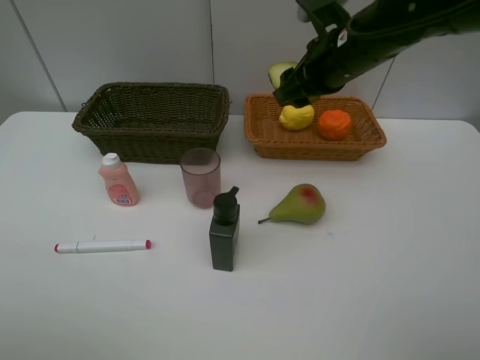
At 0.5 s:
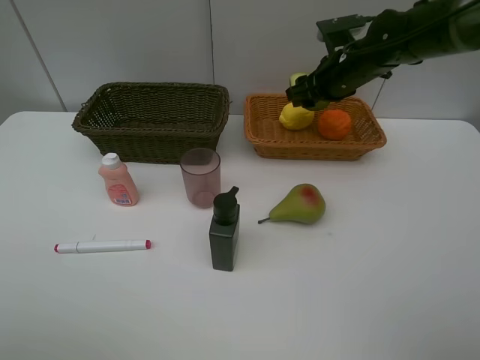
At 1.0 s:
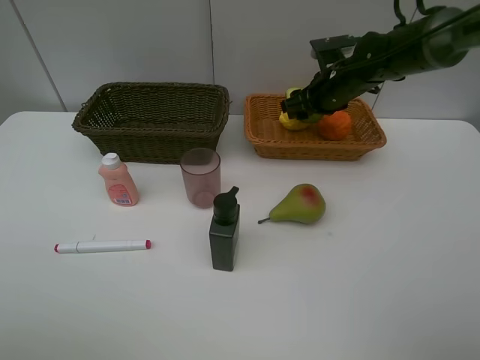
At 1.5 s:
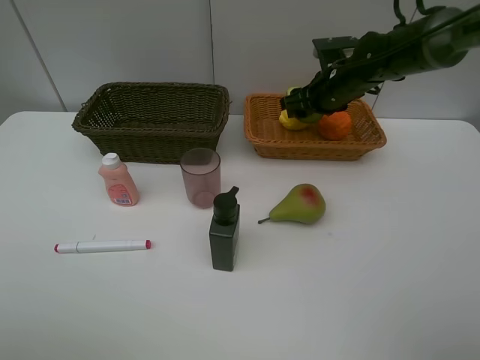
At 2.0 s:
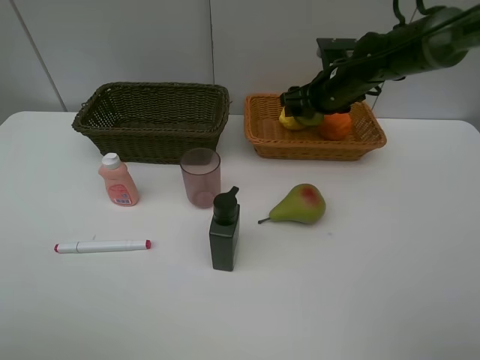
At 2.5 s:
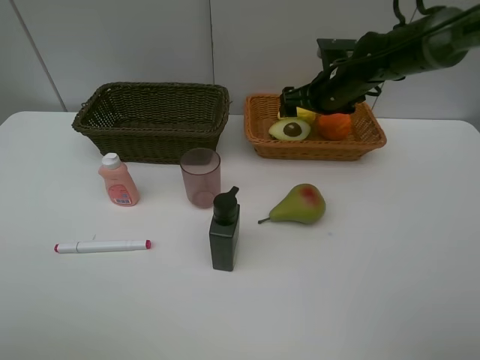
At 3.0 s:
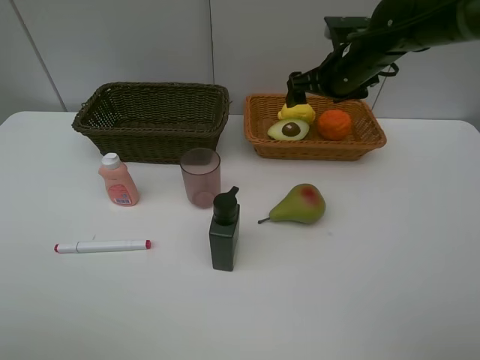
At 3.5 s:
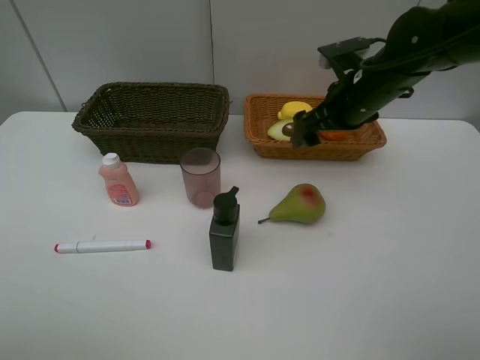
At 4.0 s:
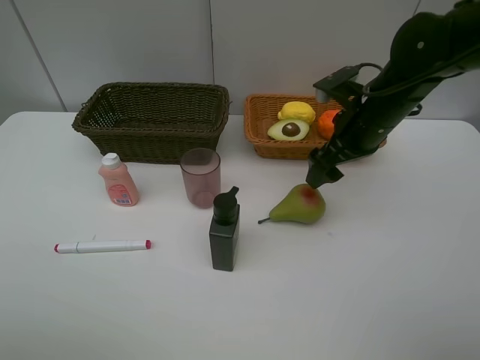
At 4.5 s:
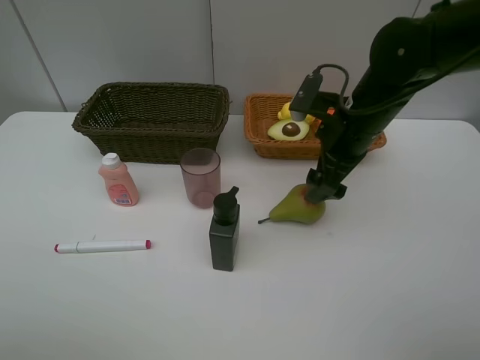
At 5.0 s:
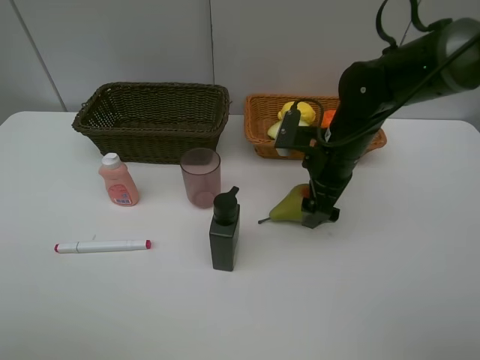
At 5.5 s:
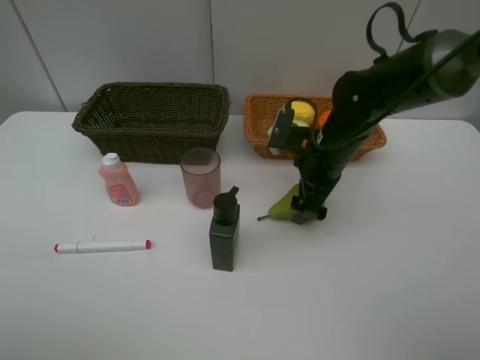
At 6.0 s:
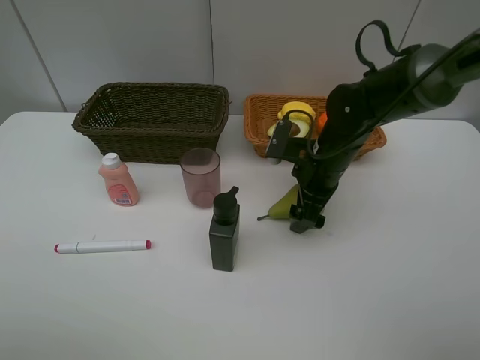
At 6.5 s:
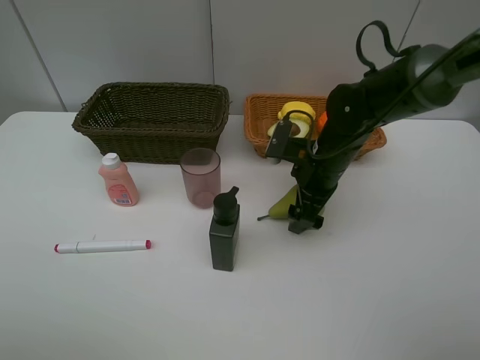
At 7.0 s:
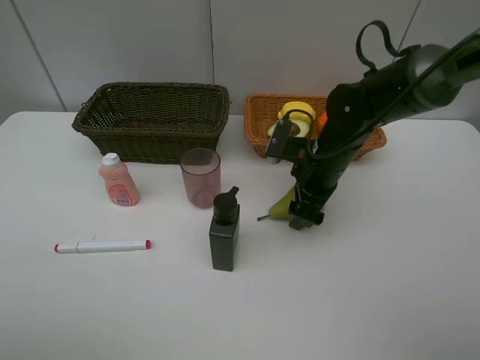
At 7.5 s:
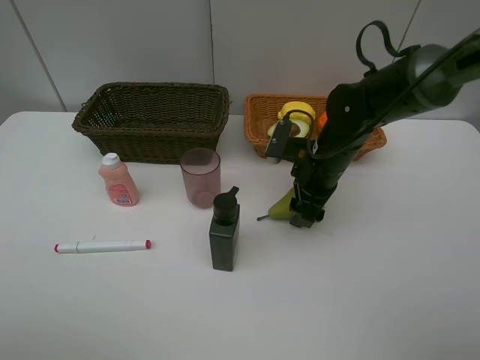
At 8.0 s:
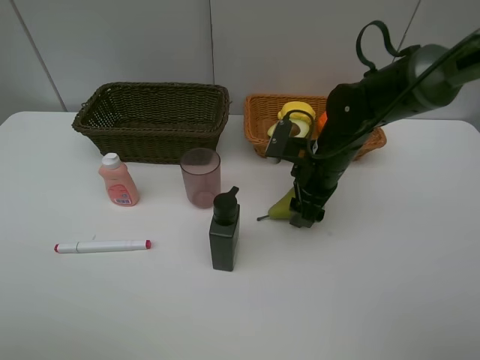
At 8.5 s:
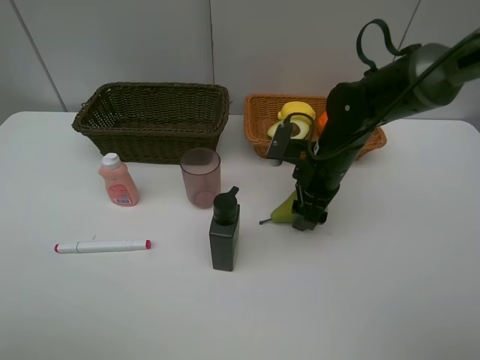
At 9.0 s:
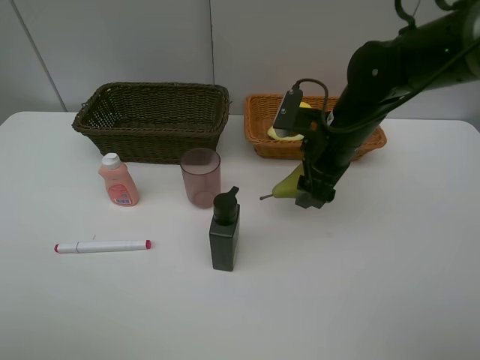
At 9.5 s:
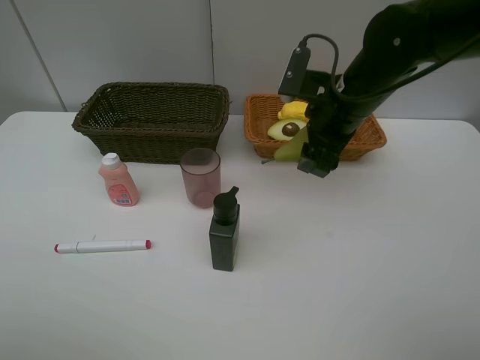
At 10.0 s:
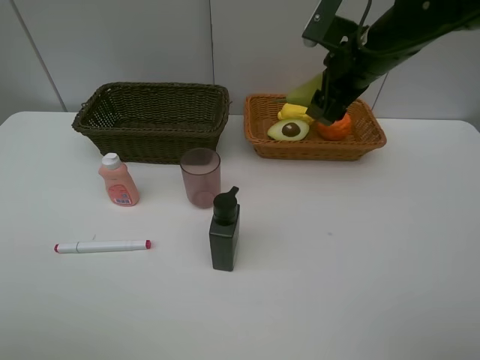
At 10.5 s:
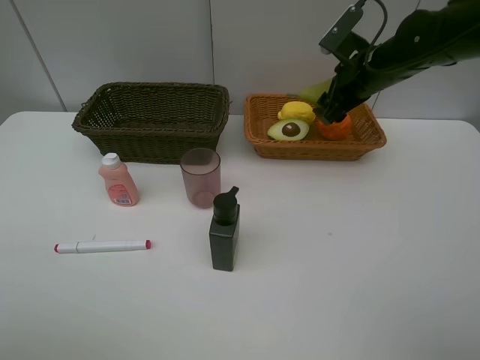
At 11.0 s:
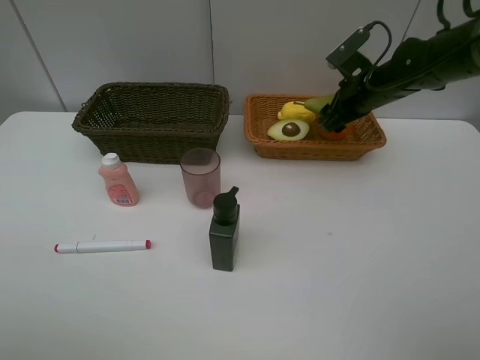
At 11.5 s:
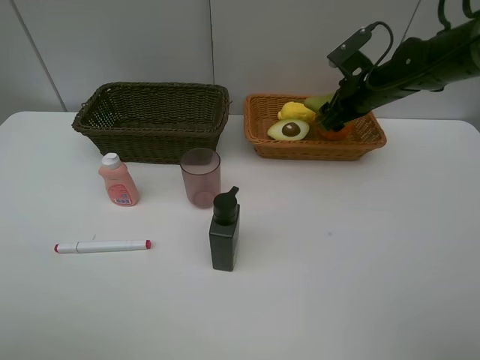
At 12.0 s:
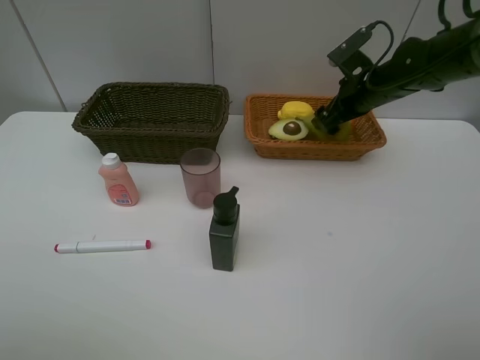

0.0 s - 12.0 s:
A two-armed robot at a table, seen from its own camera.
Task of the whole recording: Place multiple objects separately in different baskets.
Step, 0.0 s - 3.0 s: Place the avocado in the light basket with right gripper.
Step, 3.5 s - 8.5 s: Pick up the pear with right gripper.
0.0 s - 2.0 s: The right gripper shifts approximately 10 cm downward and forward, and opens its fingers.
2.0 s - 4.0 s: The right gripper is displaced backward by approximately 10 cm, and opens its fingers.
4.0 s - 6.0 s: The right gripper goes about 10 cm downward.
8.0 s - 10.0 s: The right gripper goes about 15 cm upward.
10.0 s - 12.0 s: The right gripper heads downward and forward, covering about 10 cm, and opens up.

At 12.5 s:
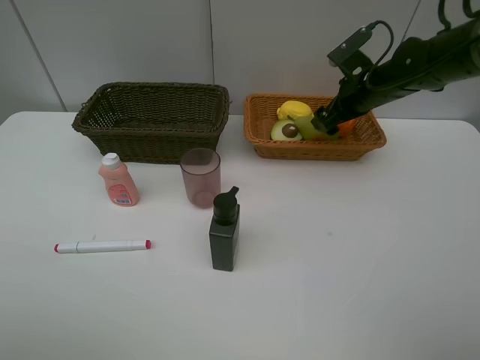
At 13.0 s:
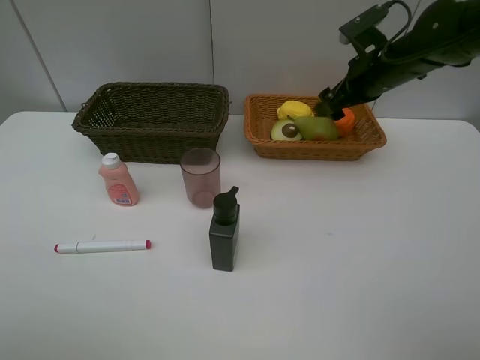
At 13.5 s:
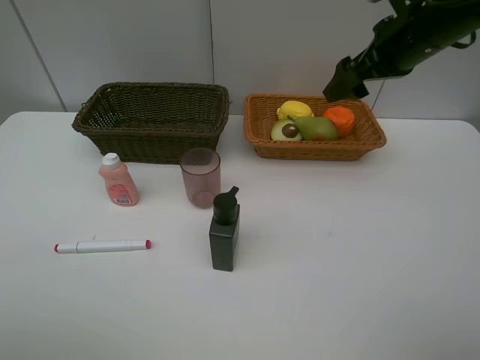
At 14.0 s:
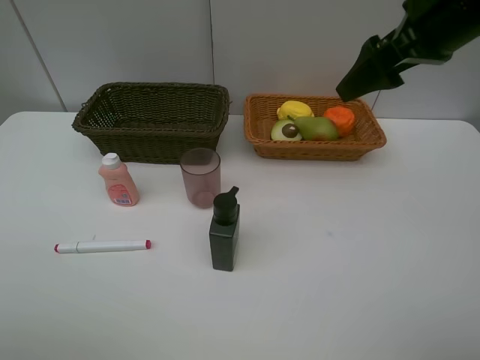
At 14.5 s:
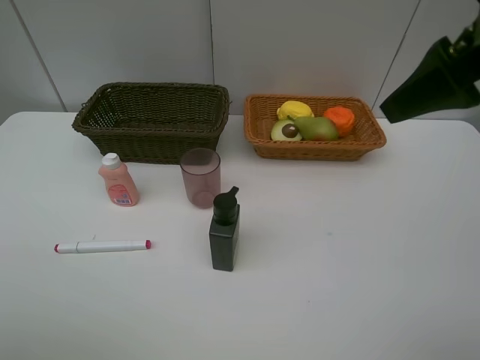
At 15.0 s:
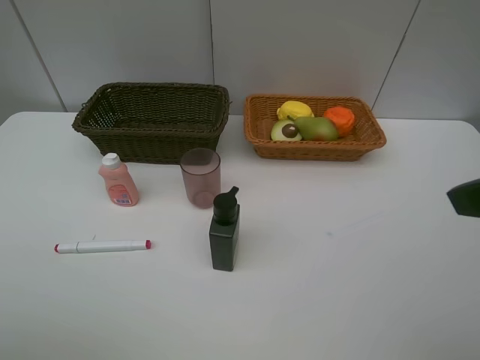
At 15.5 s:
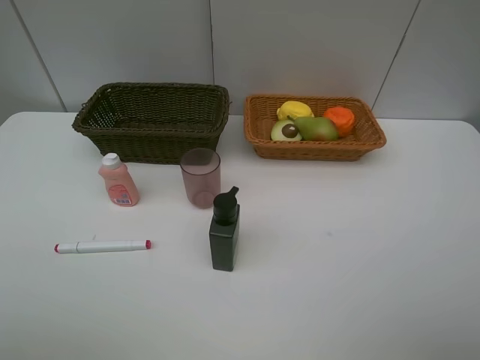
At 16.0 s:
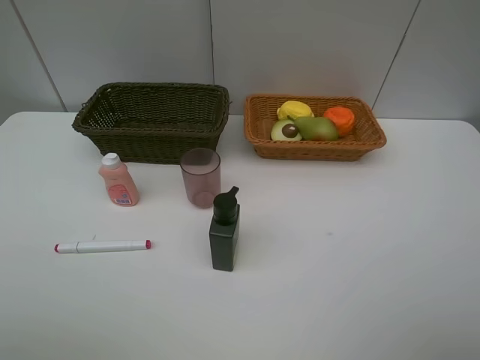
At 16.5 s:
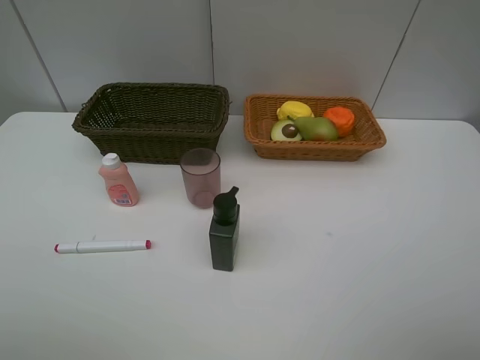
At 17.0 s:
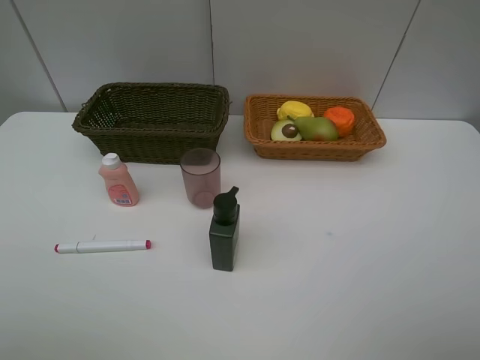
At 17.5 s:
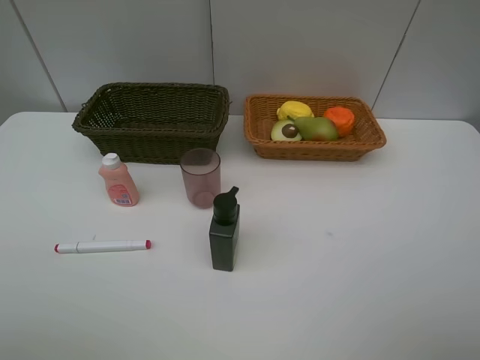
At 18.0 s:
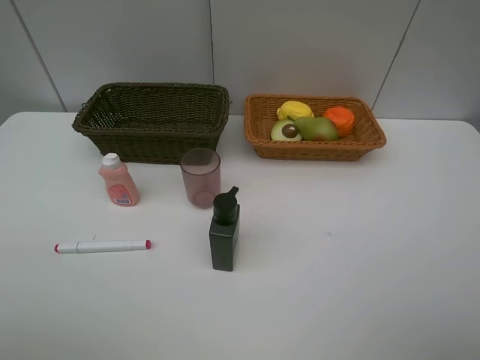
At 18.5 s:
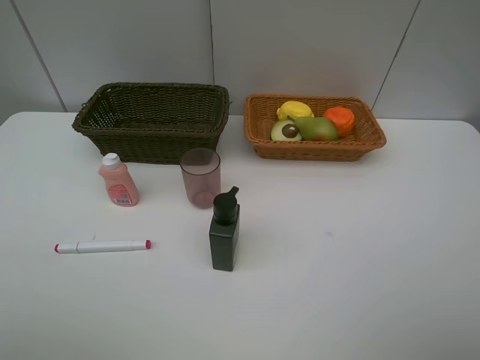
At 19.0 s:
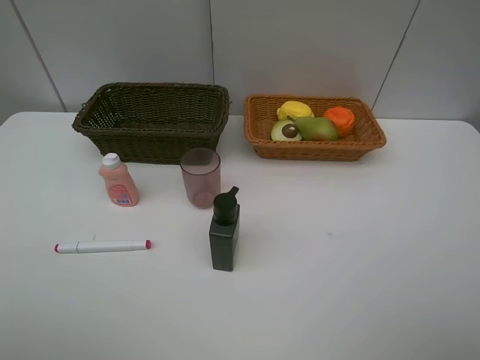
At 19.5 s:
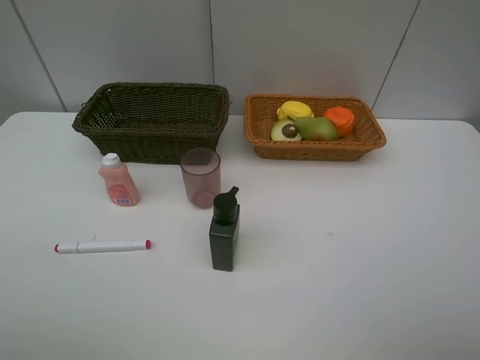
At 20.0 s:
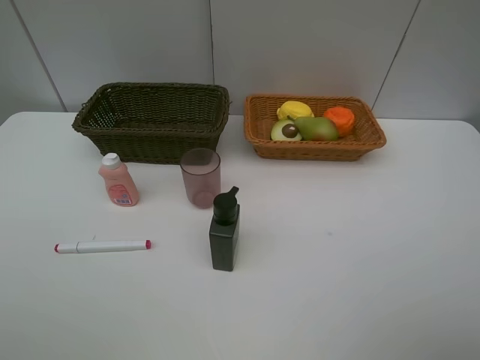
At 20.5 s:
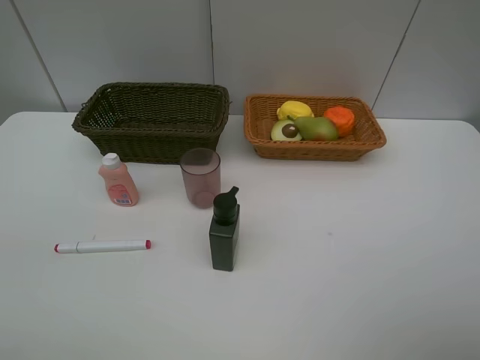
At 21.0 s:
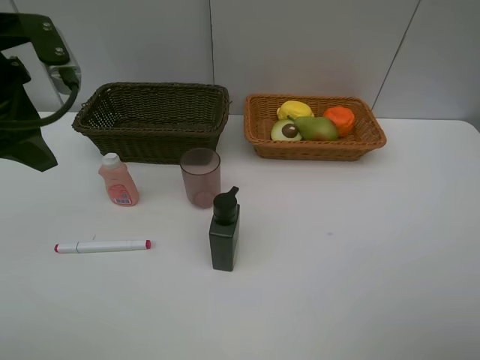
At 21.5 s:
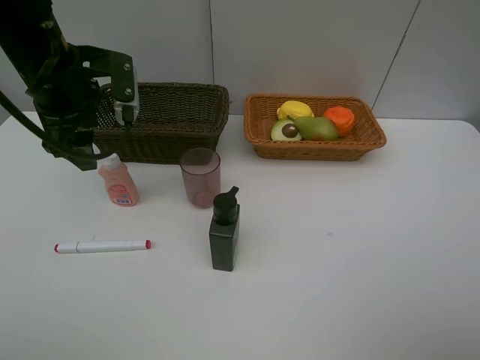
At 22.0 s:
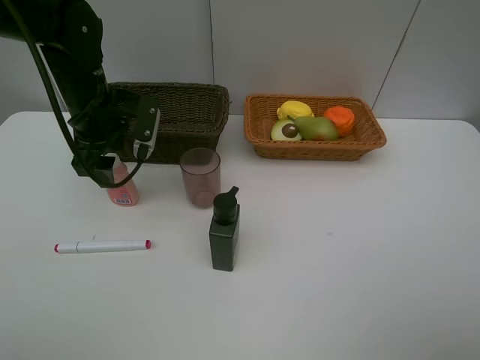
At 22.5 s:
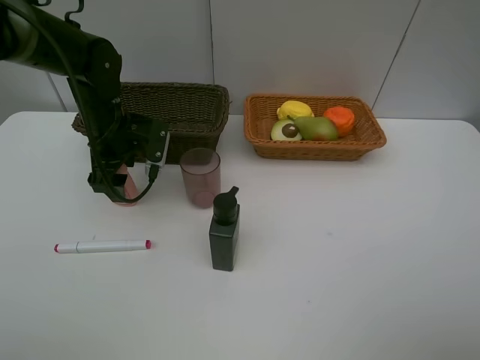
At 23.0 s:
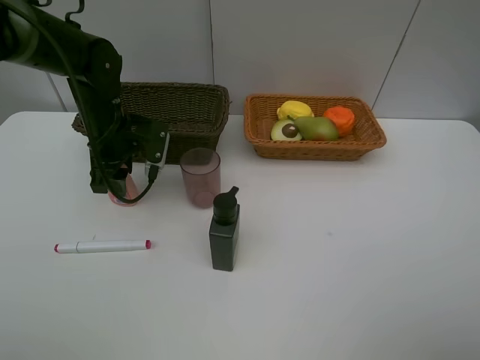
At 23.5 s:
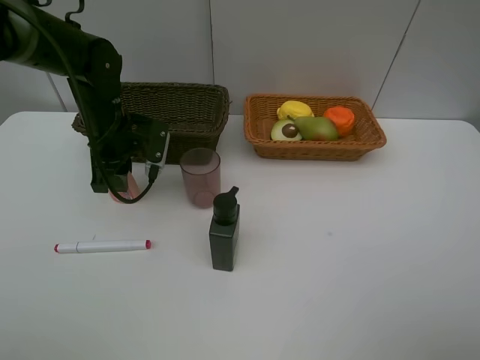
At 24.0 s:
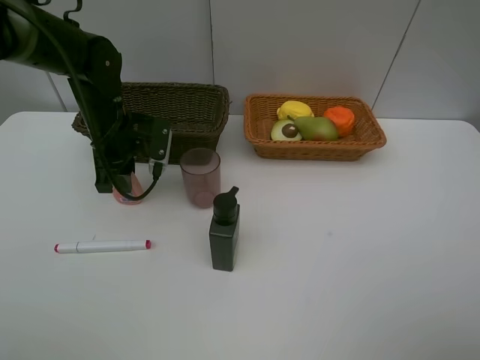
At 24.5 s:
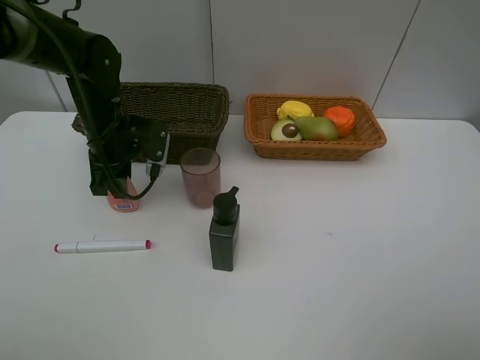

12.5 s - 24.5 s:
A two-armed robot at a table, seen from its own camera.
Task of the whole recording: Place multiple objects separately in different baskets.
12.5 s - 14.5 s: The right gripper travels backward and upward by approximately 30 cm.
14.5 s - 16.5 s: The right gripper heads backward, covering some 20 cm.
16.5 s - 18.5 s: Neither gripper changes place.
20.5 s - 22.5 s: The left gripper travels downward, forward and to the right by about 30 cm.
22.5 s - 24.5 s: The left gripper closes up.

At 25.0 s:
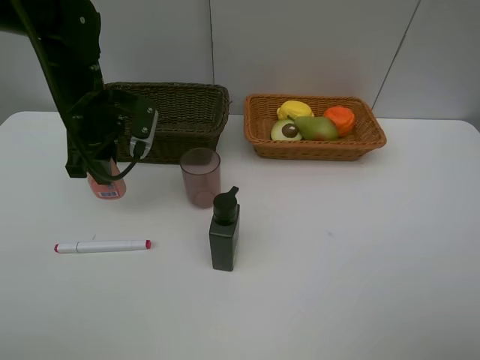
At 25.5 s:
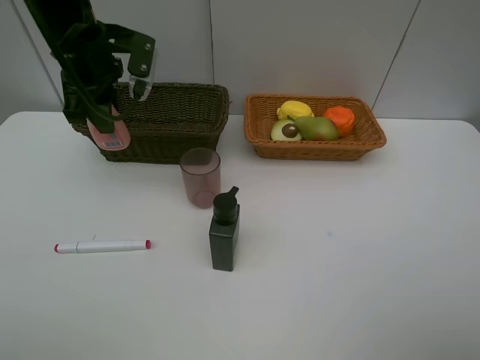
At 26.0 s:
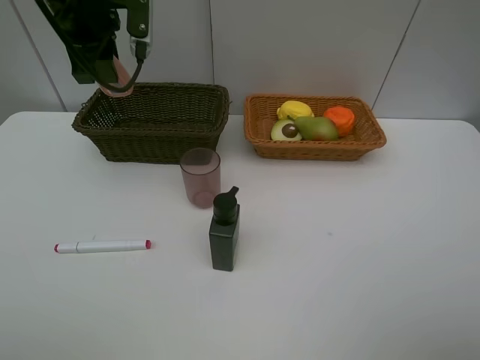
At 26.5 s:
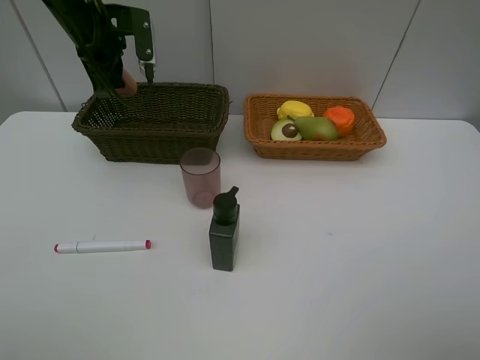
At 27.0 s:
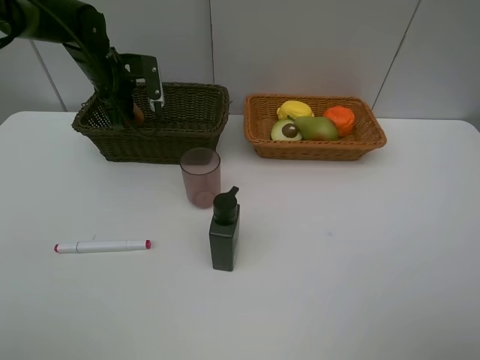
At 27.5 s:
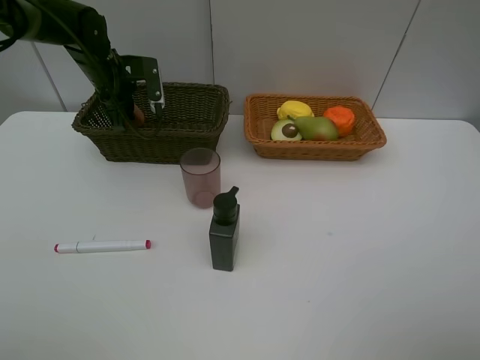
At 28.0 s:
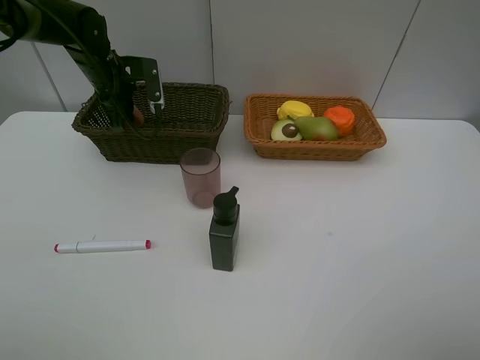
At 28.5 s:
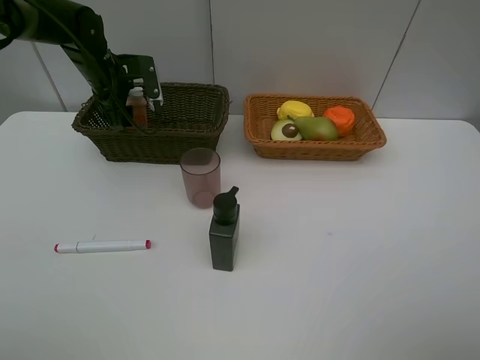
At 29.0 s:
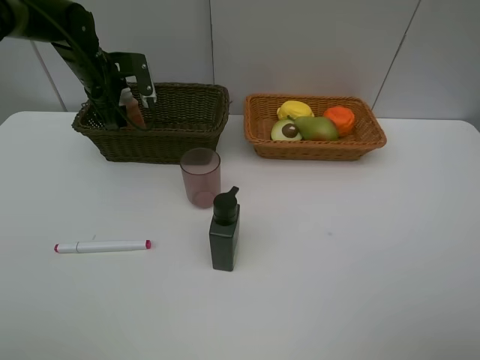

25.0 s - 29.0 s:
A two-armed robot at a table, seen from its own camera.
Task of the whole recording: Place multiple objects separately in different baskets.
25.0 s - 27.0 s: The left gripper shifts about 15 cm forward, and reaches about 10 cm upward, then returns.
27.0 s - 29.0 s: The left gripper opens up.
